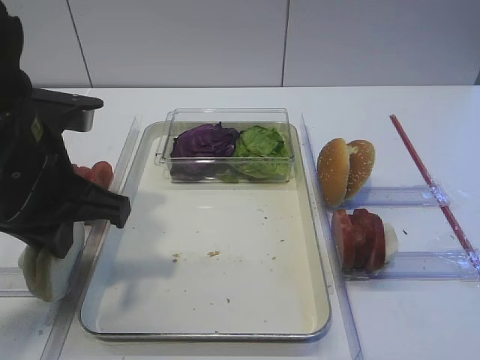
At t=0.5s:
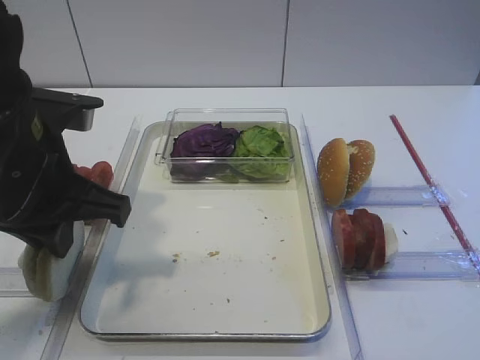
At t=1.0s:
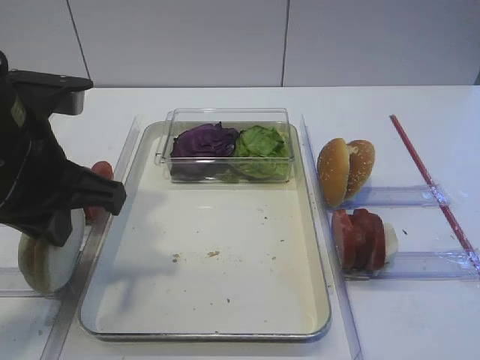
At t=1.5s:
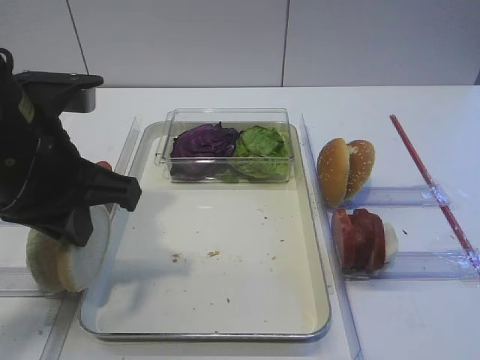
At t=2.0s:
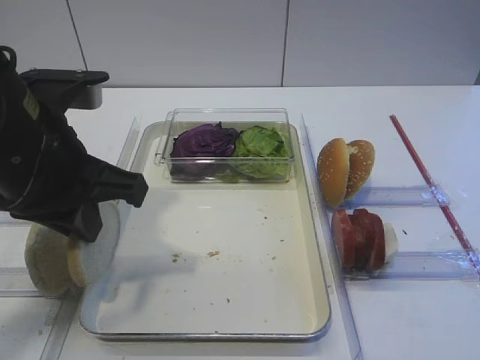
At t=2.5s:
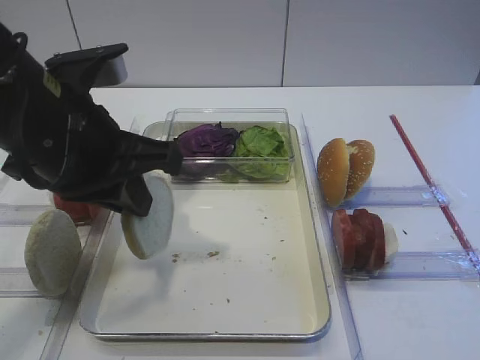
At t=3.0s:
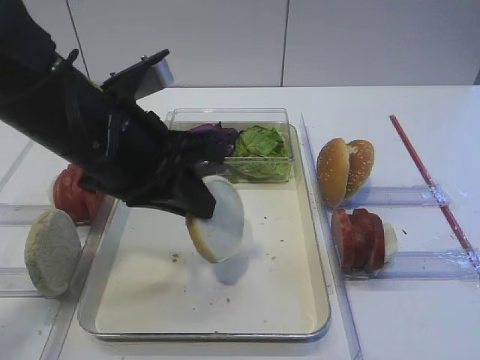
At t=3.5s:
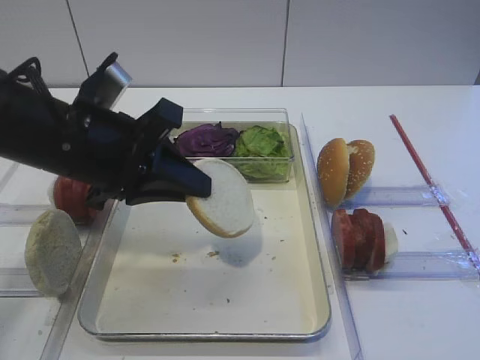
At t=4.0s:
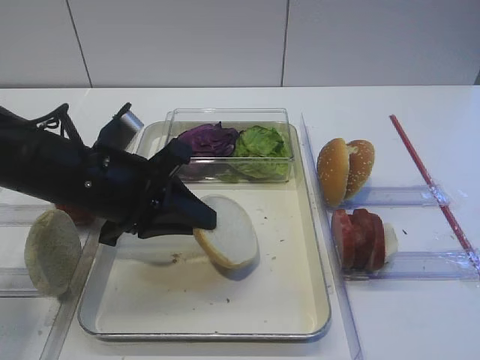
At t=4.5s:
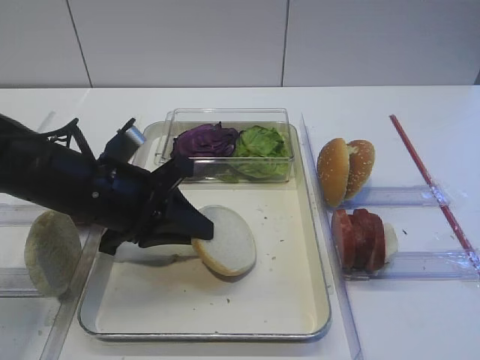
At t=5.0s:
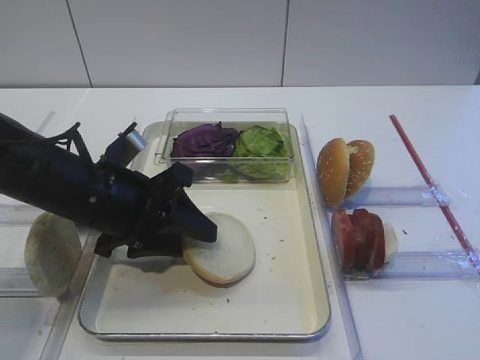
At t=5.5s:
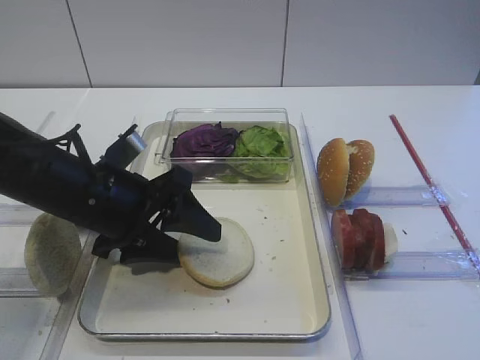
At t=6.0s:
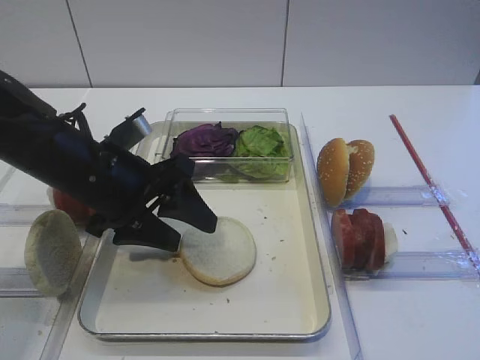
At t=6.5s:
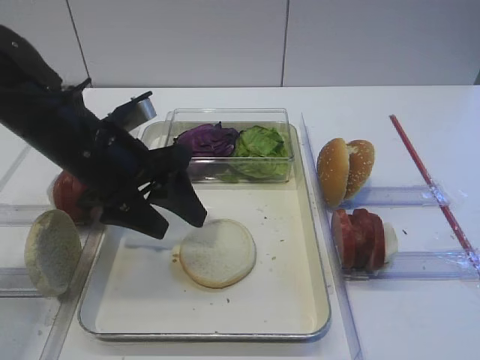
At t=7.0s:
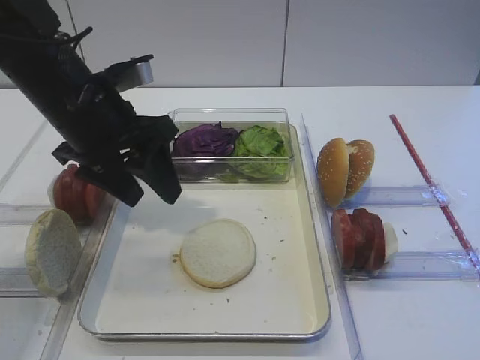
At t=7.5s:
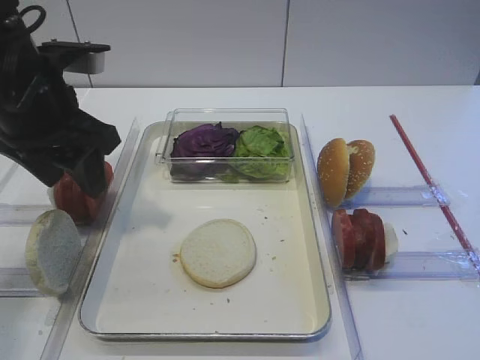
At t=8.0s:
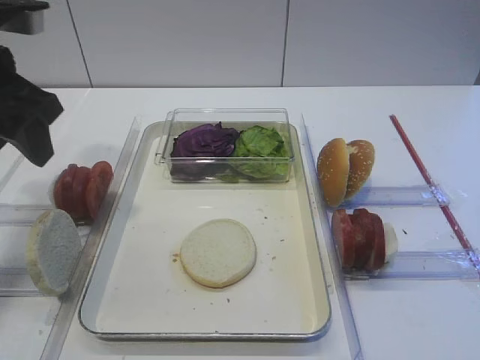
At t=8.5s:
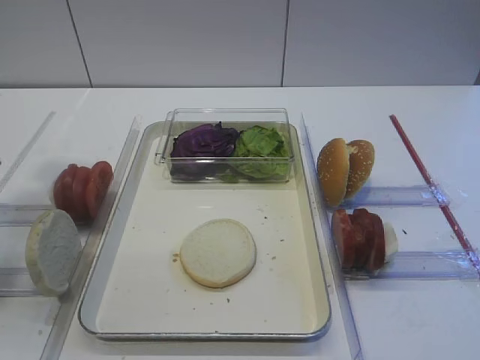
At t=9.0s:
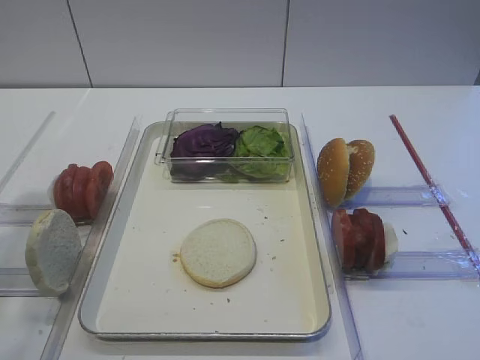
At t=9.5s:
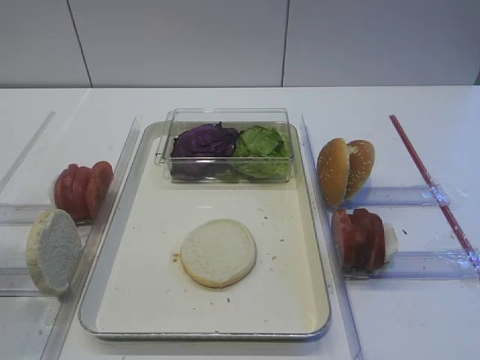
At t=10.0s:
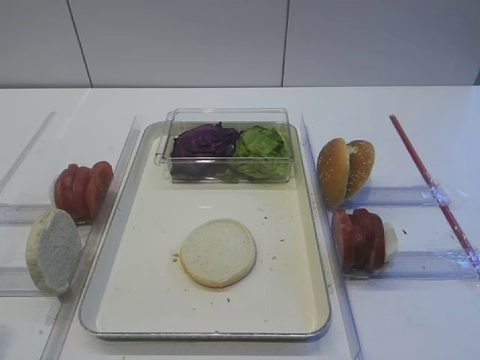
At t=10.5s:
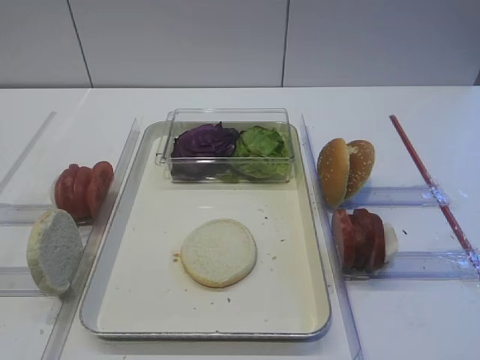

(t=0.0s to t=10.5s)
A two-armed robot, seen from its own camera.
Step, t=2.0s - t=6.5s: Place the bread slice on the tray with the left gripper.
t=0.0s - t=2.0s: The grippers stay close to where they were, moving slightly.
t=2.0s - t=4.0s: The left gripper is displaced downward by about 10 cm.
t=4.0s - t=6.5s: The left gripper opens its fingers.
t=6.5s - t=8.5s: The left gripper is displaced to the left and upward by roughly 15 cm.
t=8.5s - t=10.5s: The left gripper is displaced backward by about 25 cm.

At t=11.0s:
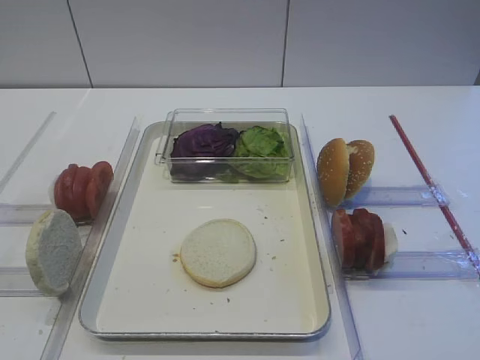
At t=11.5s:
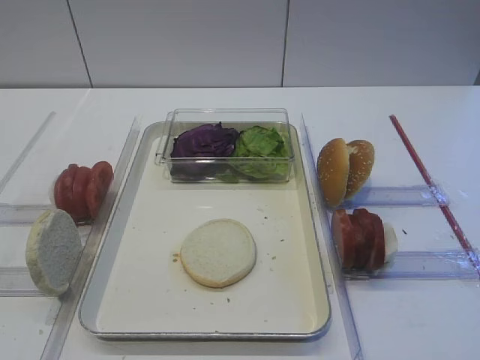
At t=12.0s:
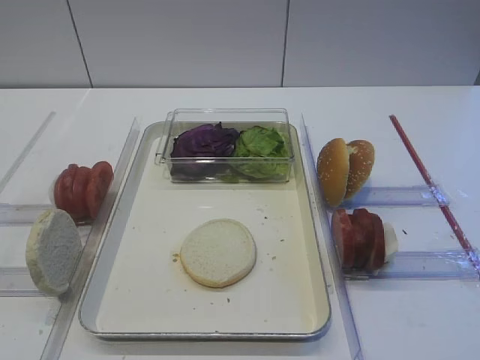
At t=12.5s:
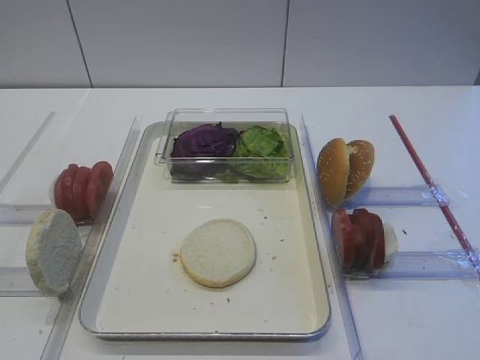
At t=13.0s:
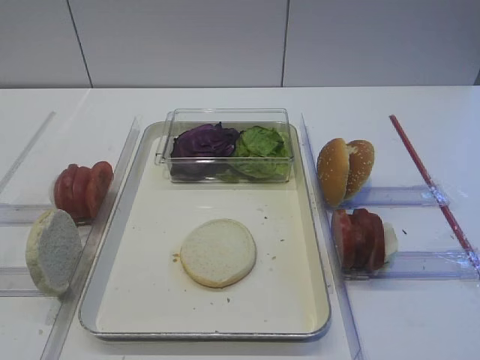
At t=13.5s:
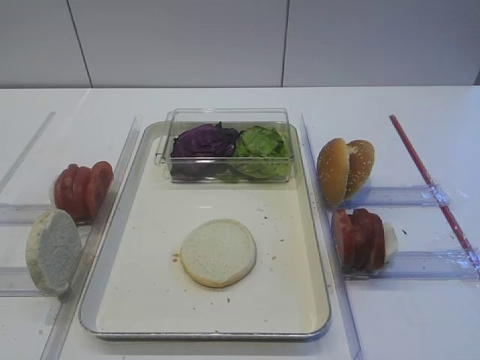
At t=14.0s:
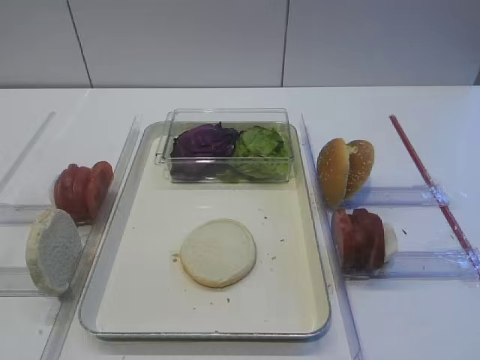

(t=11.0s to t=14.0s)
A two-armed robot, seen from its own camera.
t=11.0s - t=14.0s: Both grippers stay about where they are.

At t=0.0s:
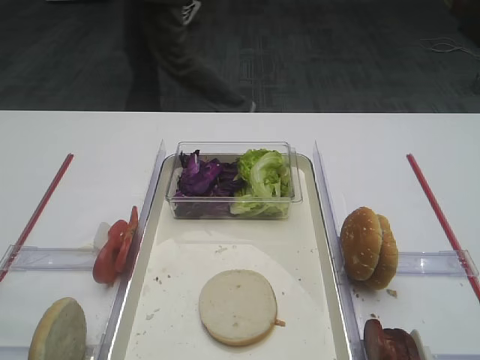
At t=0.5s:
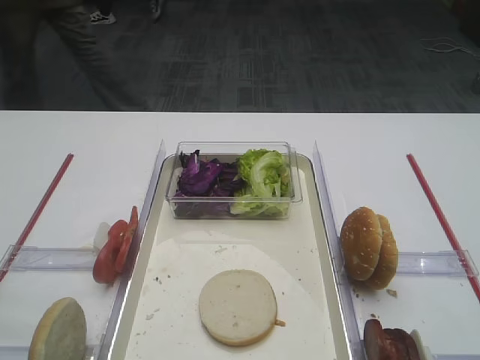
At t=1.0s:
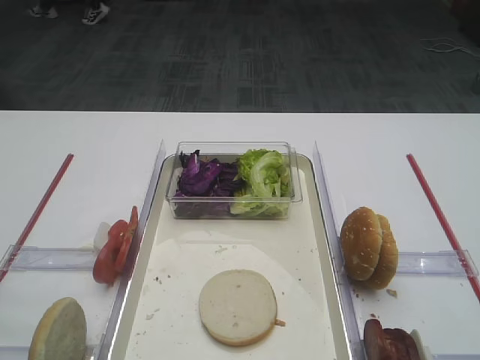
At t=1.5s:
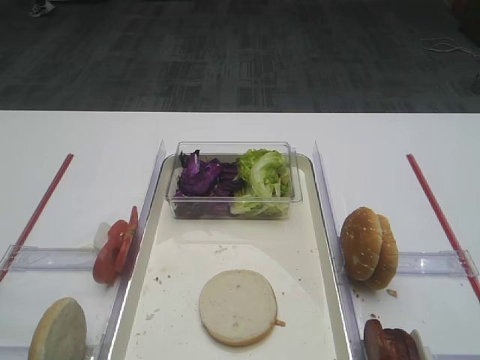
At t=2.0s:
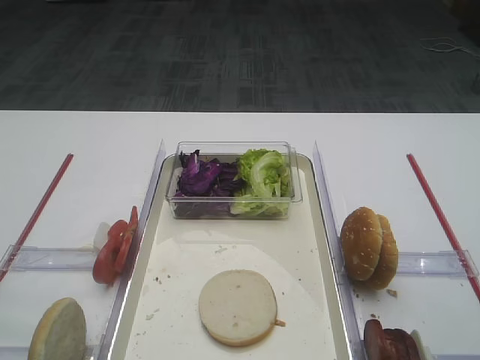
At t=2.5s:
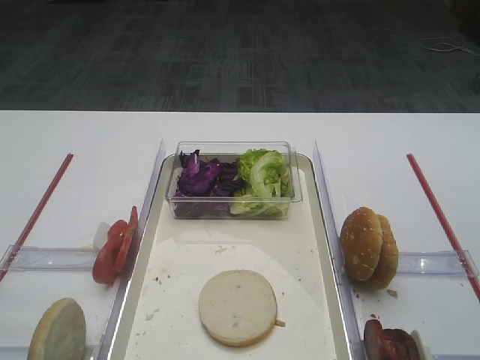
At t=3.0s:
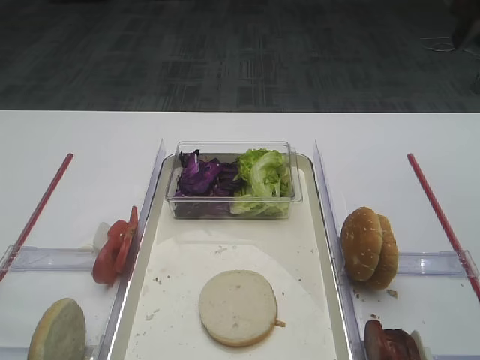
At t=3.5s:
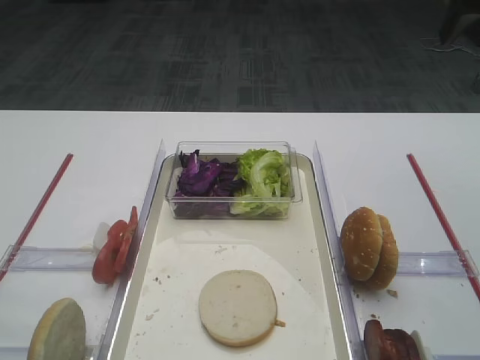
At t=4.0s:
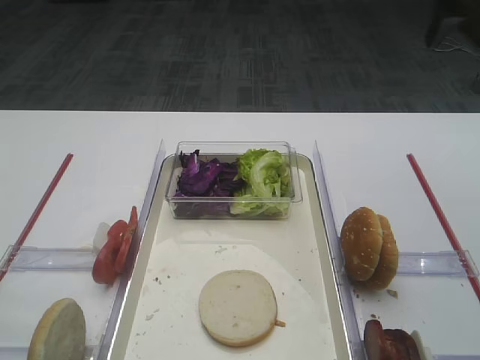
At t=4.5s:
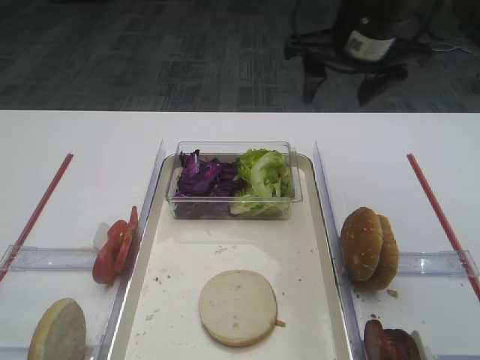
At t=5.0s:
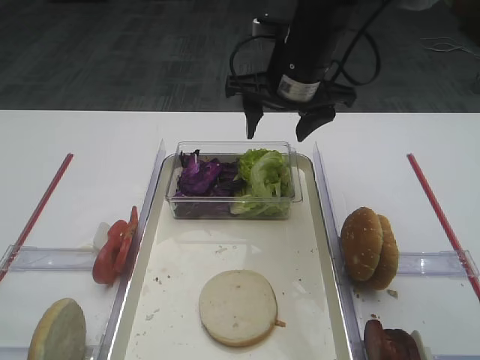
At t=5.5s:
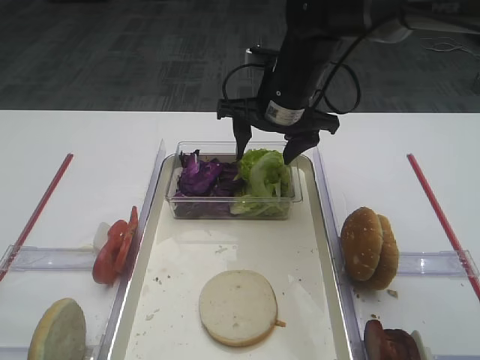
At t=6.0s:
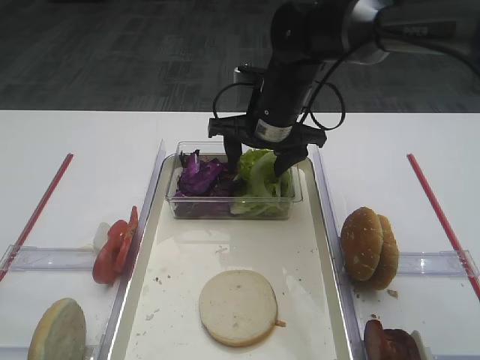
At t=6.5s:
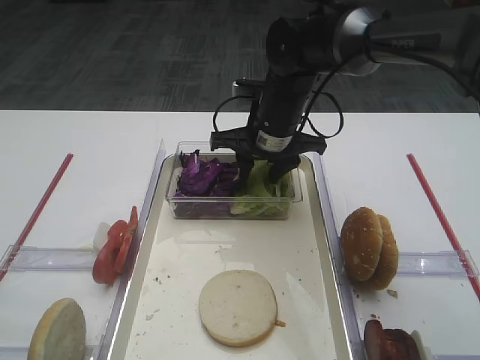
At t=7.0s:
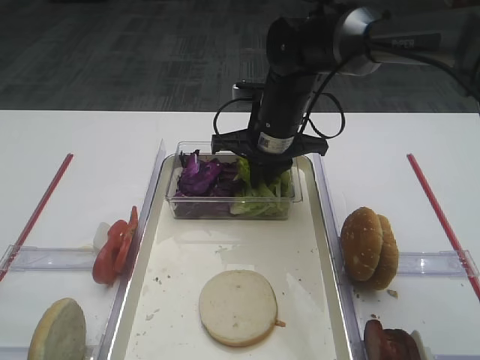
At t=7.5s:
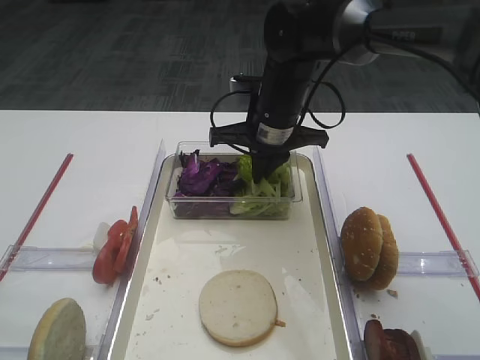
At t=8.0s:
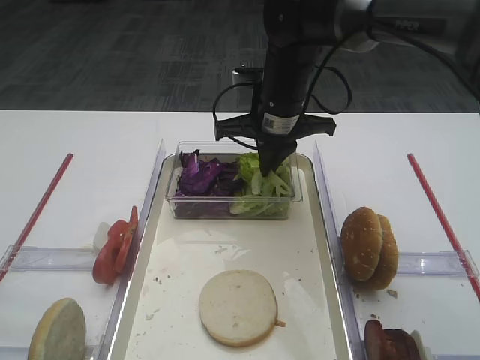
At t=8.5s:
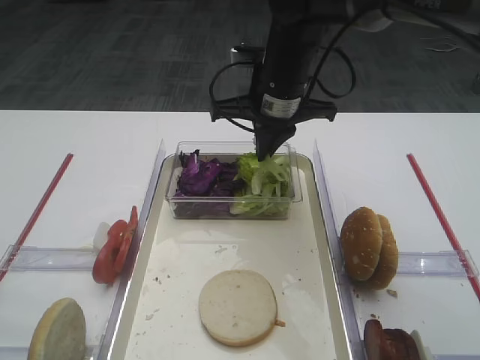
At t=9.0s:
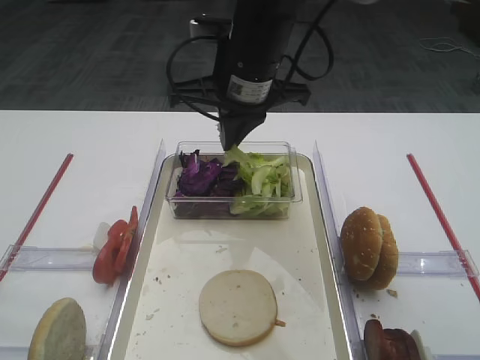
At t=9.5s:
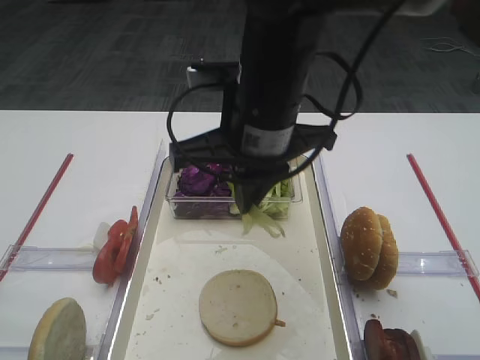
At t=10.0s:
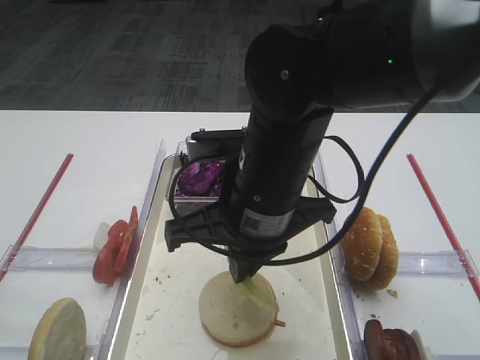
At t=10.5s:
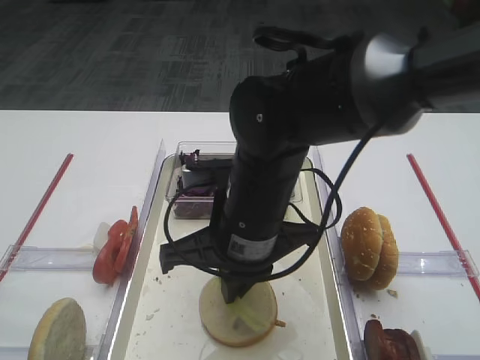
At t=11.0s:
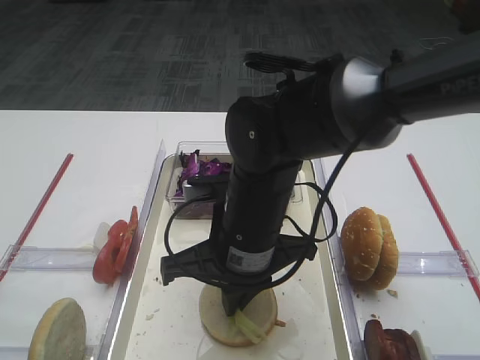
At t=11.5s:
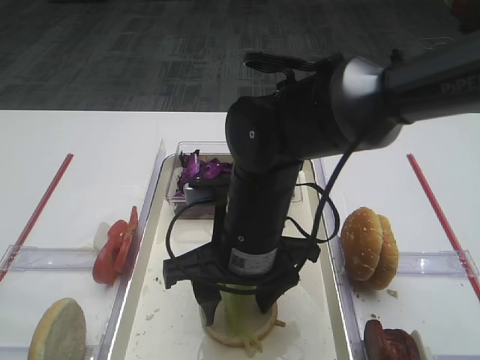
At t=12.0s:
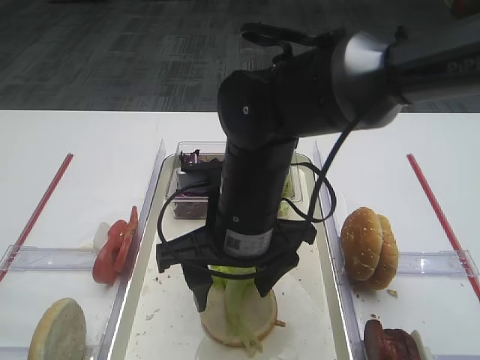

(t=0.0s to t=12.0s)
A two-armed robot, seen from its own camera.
Step, t=0.0s - t=8.5s: Pick up the lettuce leaf with the right gripper.
t=4.0s - t=6.0s: The right gripper shifts roughly 30 cm to the left and downward.
t=6.0s - t=8.0s: The right gripper closes.
t=8.0s - t=10.0s: The right gripper shifts approximately 20 cm backward.
t=10.0s - t=12.0s: The right gripper opens its fingers.
